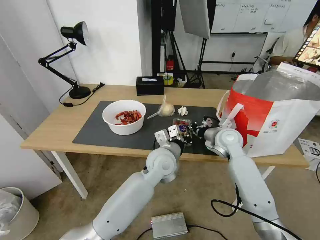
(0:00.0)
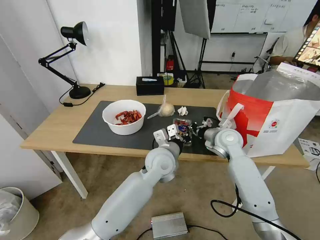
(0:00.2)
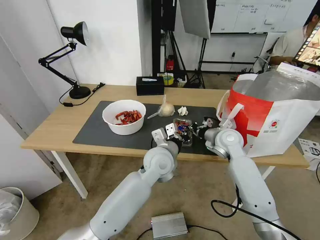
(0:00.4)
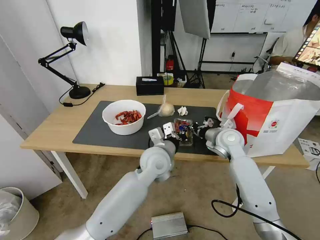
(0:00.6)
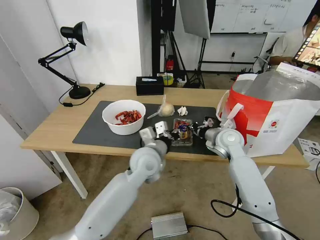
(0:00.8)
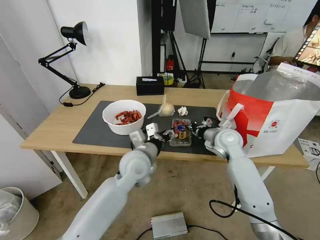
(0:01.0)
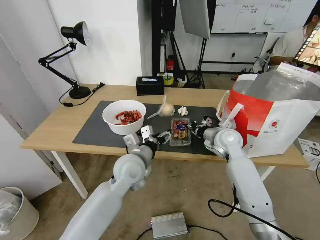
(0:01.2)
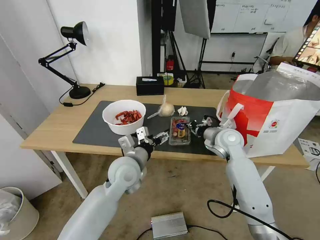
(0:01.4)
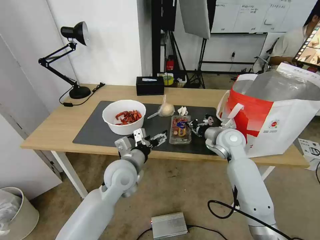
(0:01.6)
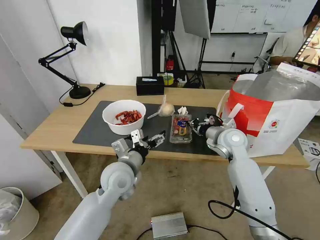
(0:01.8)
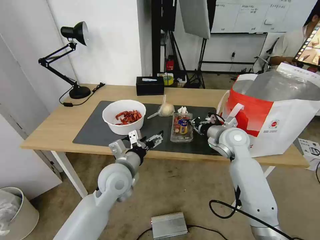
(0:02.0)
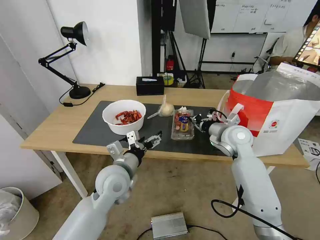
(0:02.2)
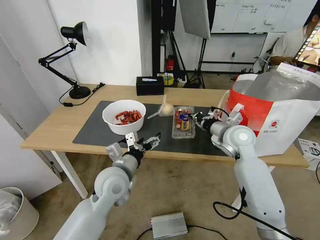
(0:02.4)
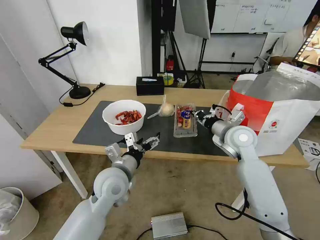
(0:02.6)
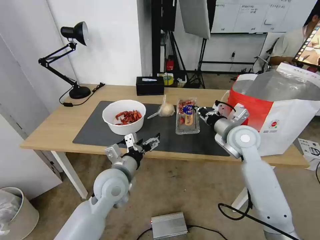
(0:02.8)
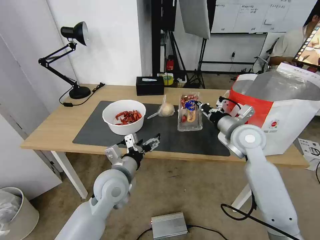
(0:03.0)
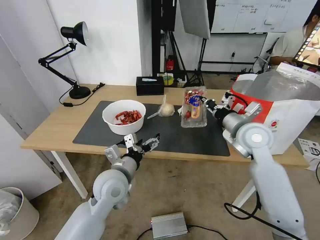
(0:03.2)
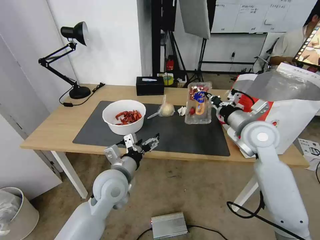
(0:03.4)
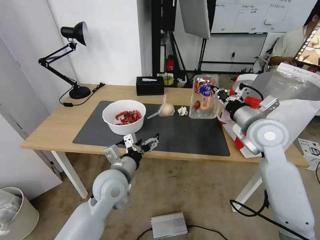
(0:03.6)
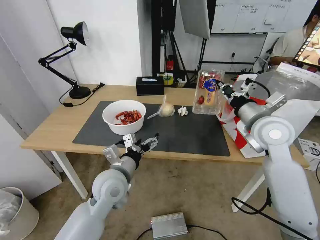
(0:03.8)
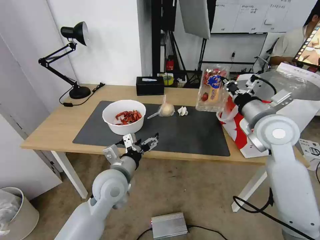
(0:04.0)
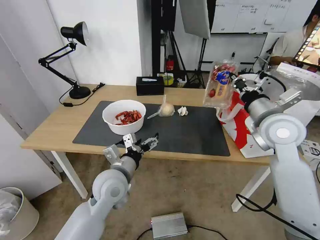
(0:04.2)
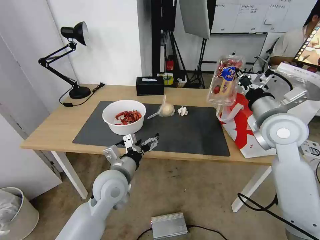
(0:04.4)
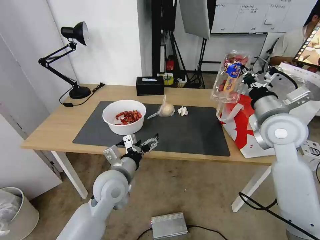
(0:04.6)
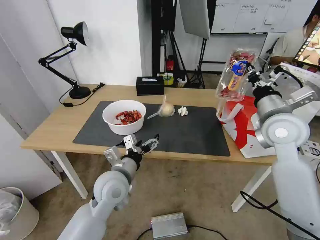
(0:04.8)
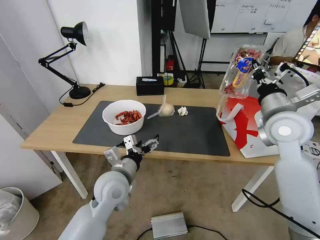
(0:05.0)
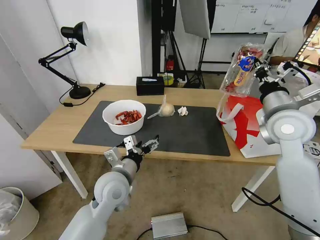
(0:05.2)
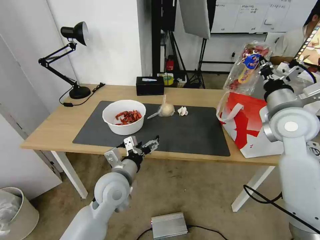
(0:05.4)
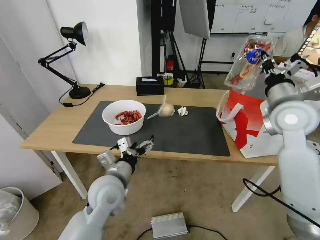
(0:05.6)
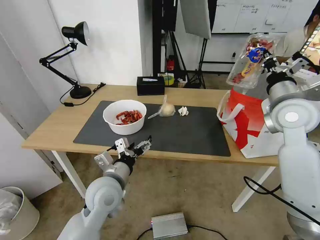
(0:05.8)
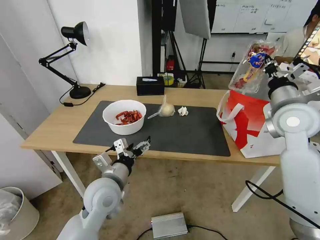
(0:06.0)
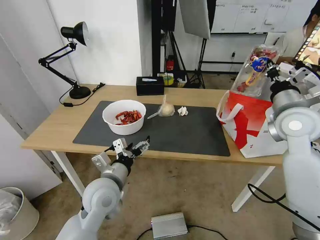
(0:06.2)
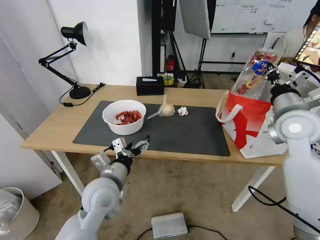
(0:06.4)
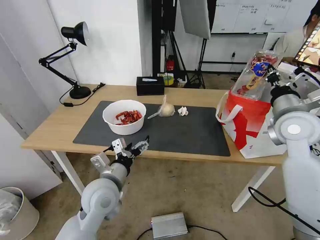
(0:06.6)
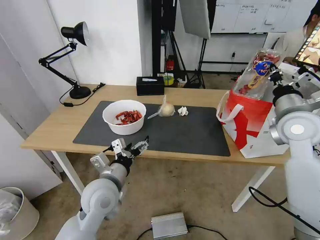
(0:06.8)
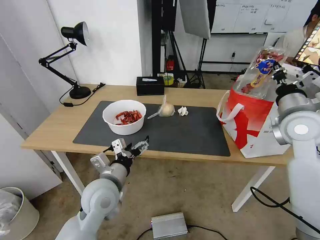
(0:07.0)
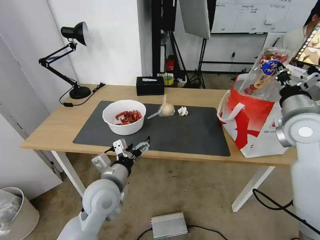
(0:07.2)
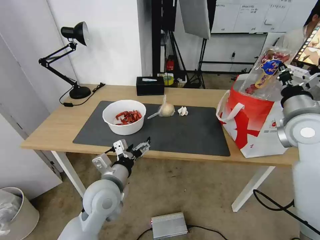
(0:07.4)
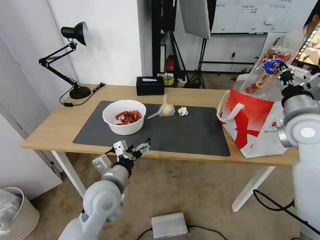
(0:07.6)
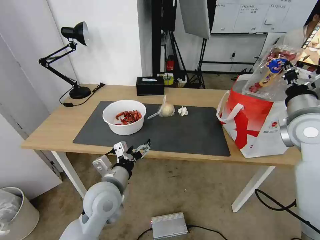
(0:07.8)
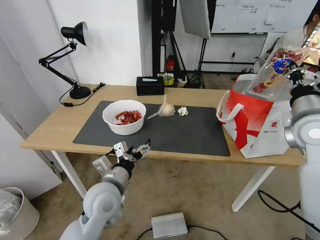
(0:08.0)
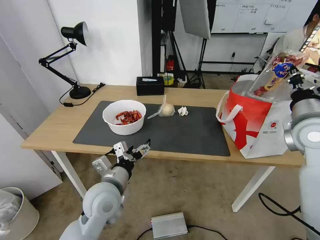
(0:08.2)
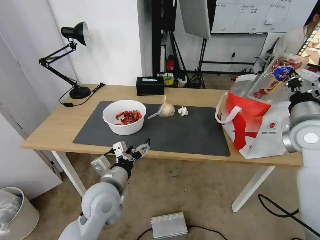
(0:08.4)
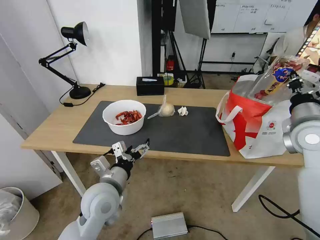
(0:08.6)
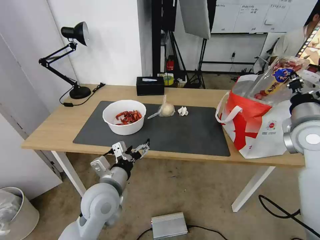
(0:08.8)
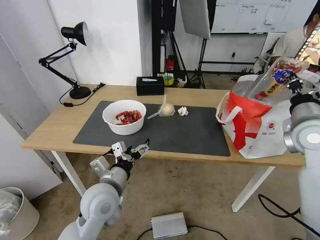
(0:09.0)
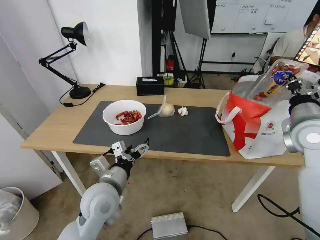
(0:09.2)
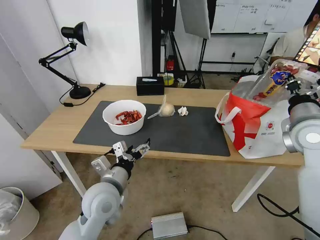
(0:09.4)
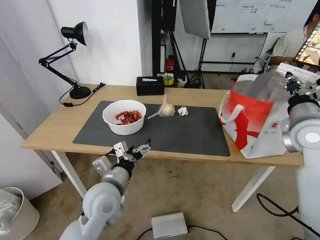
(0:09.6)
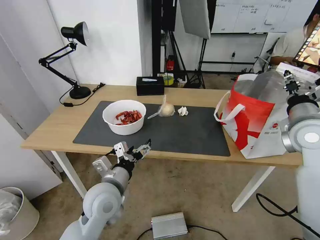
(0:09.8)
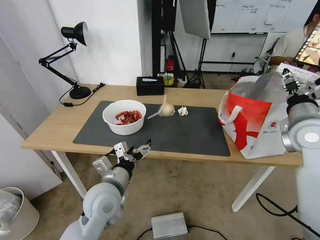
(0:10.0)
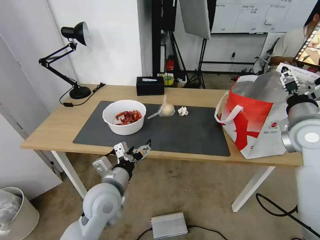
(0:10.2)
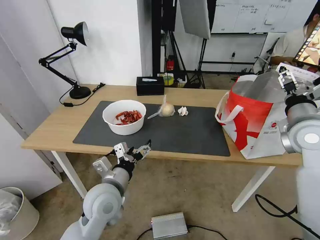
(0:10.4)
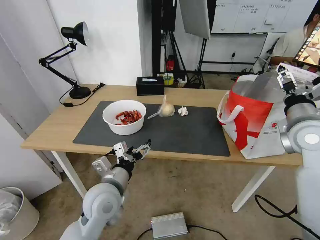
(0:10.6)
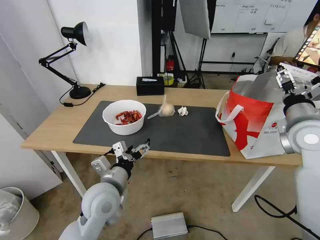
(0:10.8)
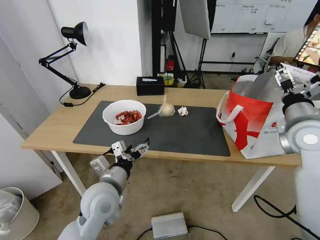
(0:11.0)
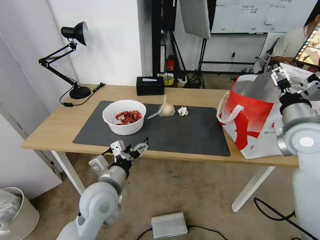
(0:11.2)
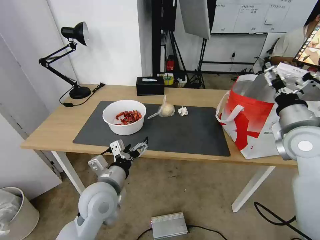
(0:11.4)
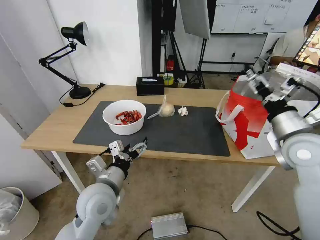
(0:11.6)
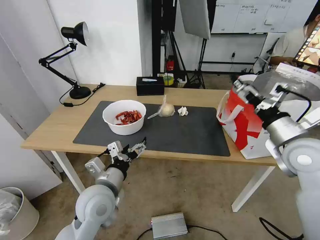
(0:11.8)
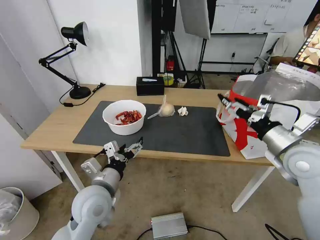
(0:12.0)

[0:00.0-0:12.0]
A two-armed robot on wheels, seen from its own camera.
Task of the whole recording: Pick up the trash from the table and place it into the takeout bag.
0:00.0 to 0:01.6: The left gripper shifts roughly 10 cm to the left, and opens its fingers.
0:01.6 to 0:03.0: The right gripper moves upward, approximately 5 cm.
0:03.0 to 0:04.4: The right gripper heads upward, covering about 5 cm.
0:04.4 to 0:07.6: The grippers make only small movements.
0:07.6 to 0:09.0: There are only small adjustments of the grippers.
0:09.0 to 0:10.4: The right gripper opens up.
0:10.4 to 0:12.0: The right gripper shifts some 5 cm backward.

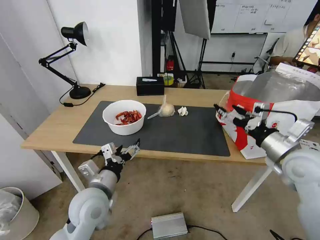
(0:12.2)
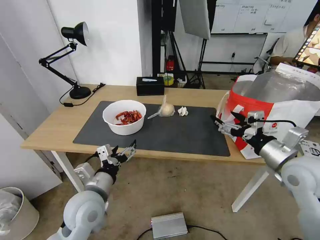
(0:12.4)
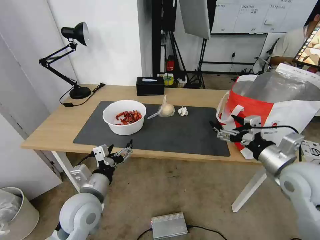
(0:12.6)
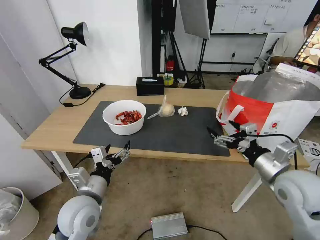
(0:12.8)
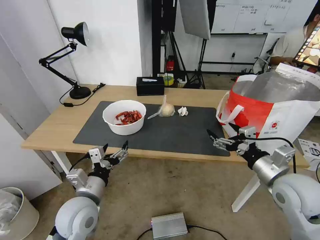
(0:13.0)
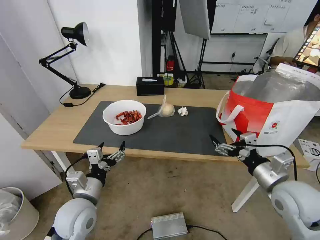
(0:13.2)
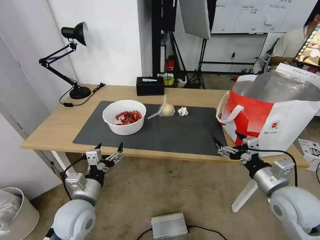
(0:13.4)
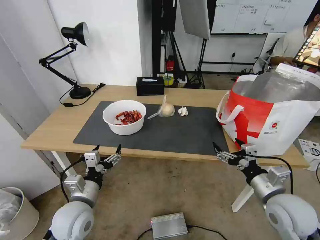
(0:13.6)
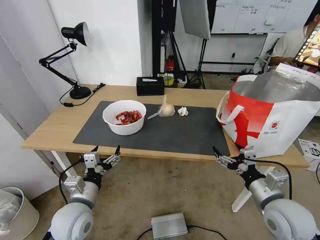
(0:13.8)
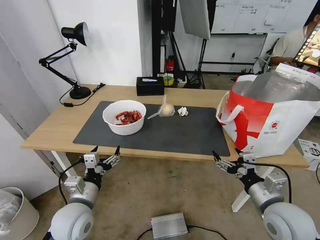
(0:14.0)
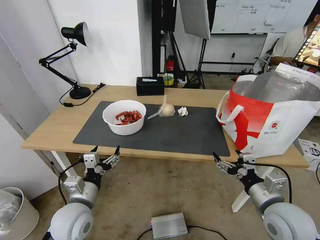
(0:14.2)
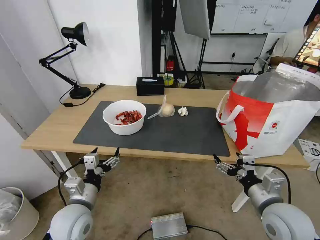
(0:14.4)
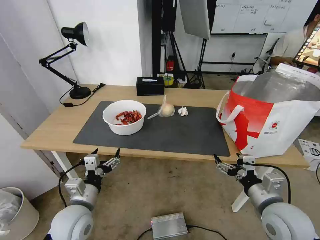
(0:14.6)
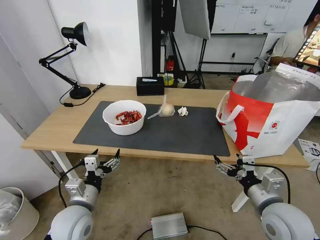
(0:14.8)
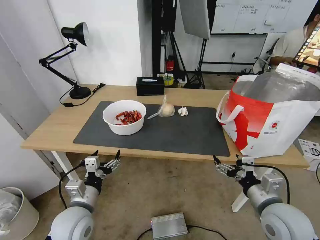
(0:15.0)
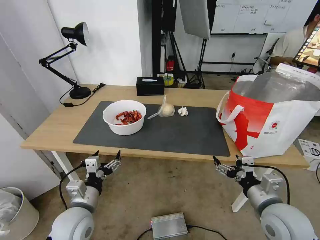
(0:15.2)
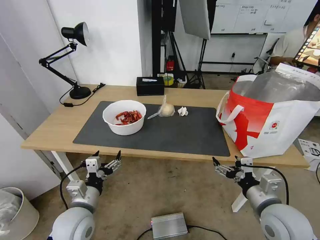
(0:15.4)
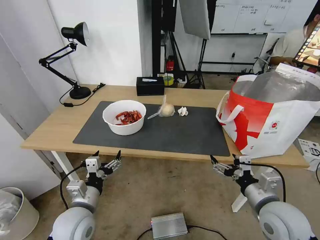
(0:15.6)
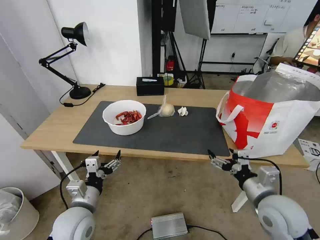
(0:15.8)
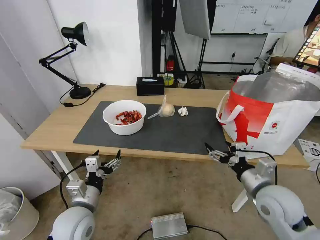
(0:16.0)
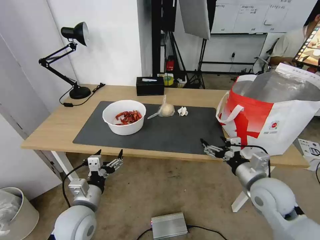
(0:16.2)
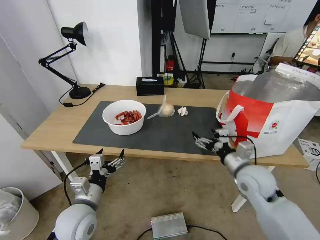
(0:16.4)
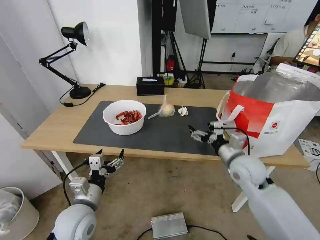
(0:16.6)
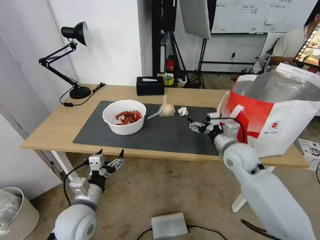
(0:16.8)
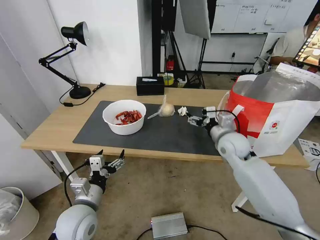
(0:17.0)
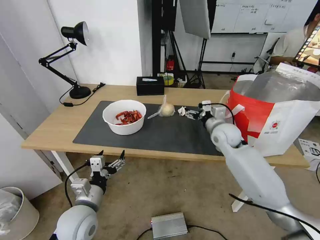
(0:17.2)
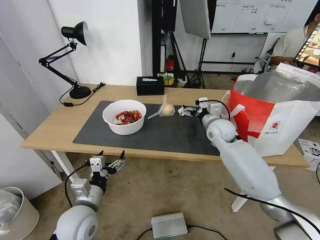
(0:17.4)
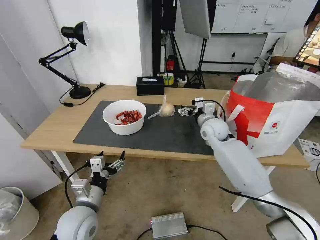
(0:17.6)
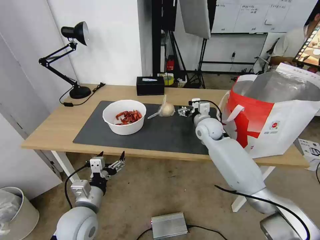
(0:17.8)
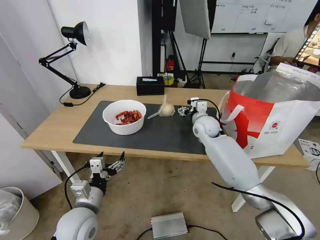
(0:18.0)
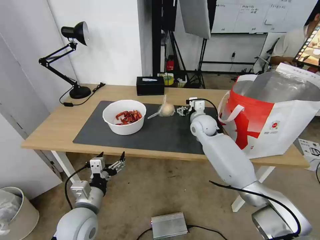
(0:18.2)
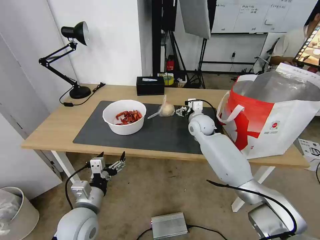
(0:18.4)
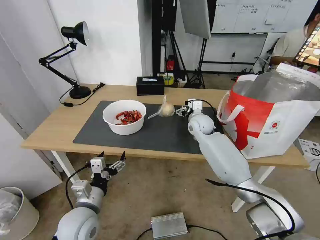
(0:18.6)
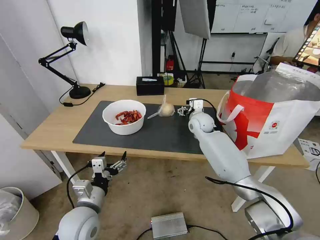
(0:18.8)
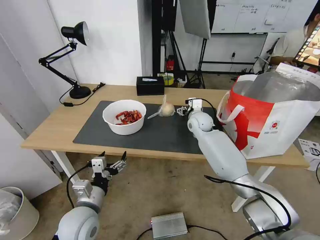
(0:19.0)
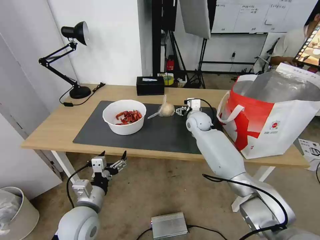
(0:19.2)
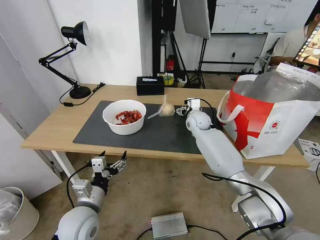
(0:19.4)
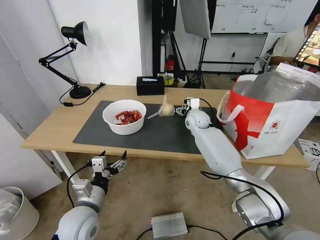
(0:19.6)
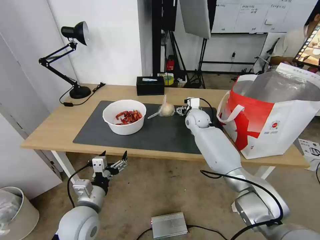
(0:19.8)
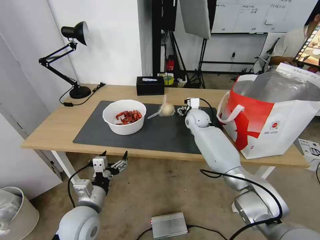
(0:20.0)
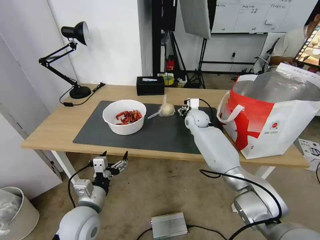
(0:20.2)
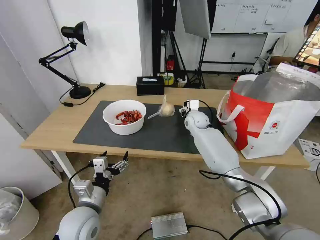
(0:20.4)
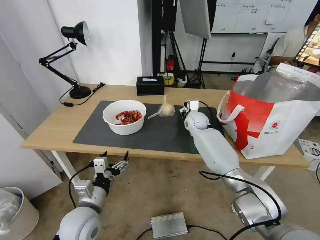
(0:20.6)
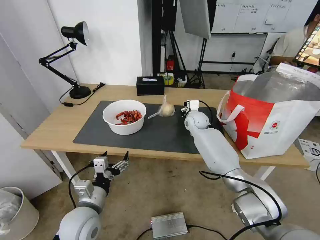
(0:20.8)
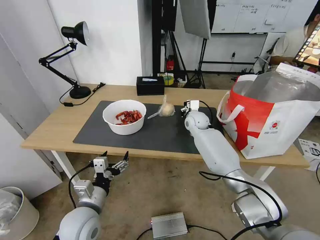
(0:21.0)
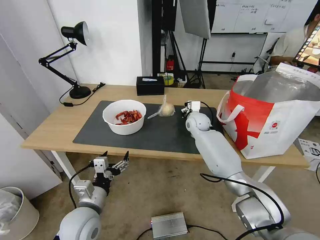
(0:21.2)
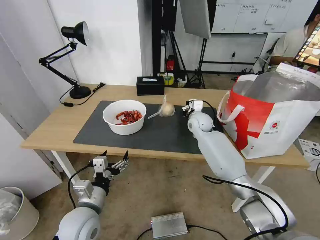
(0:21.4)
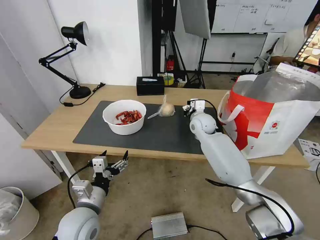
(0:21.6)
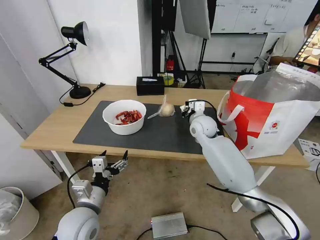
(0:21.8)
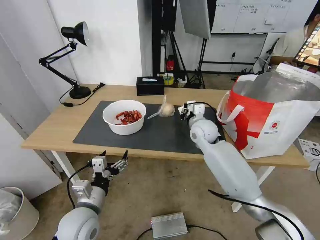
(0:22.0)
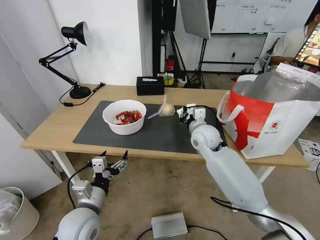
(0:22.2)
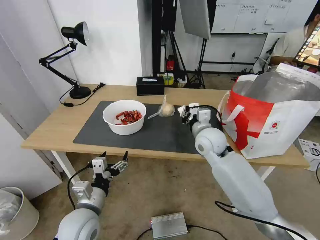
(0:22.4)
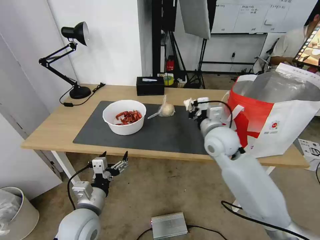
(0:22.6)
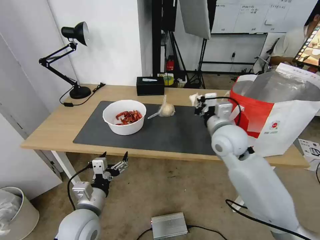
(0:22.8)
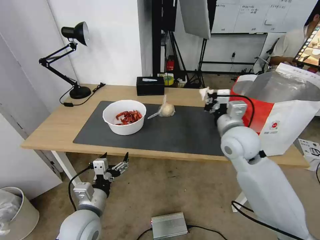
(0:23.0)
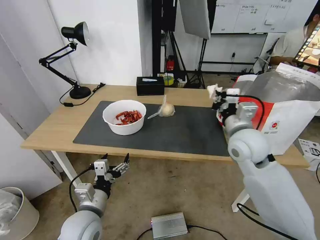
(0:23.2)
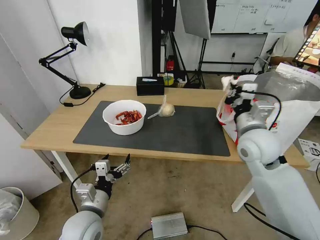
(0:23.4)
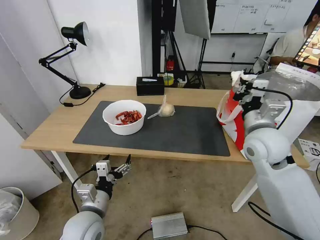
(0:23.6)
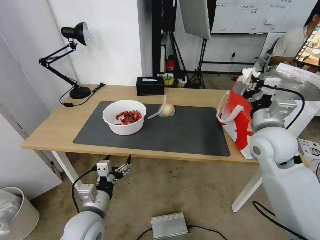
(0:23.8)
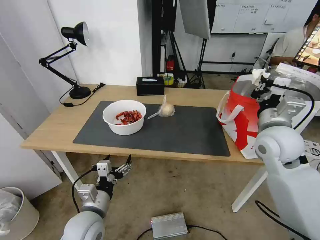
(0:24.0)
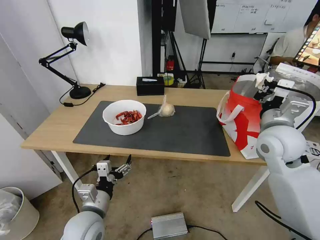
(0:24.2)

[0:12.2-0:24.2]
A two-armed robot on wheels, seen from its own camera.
Task of the whole recording: Pick up the trash from the table and place it into the takeout bag.
0:12.2 to 0:13.8: The left gripper goes roughly 5 cm to the left. The right gripper is displaced downward and backward by some 15 cm.
0:13.8 to 0:15.2: The grippers move only a little.
0:15.2 to 0:16.6: The right gripper is displaced forward by about 15 cm.
0:16.6 to 0:18.2: The right gripper shifts some 20 cm forward and to the left.
0:18.2 to 0:19.8: The right gripper travels forward by some 5 cm.
0:19.8 to 0:21.2: The right gripper closes its fingers.
0:21.2 to 0:22.6: The right gripper is displaced backward and upward by about 20 cm.
0:22.6 to 0:24.2: The right gripper is displaced to the right and upward by about 15 cm.
